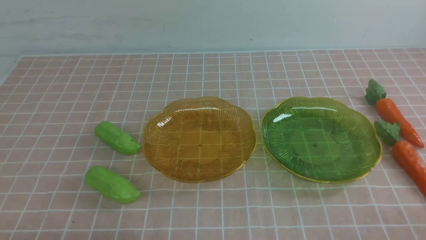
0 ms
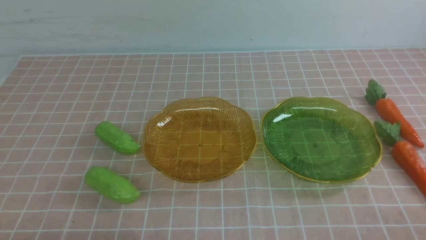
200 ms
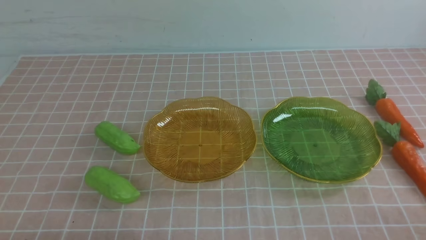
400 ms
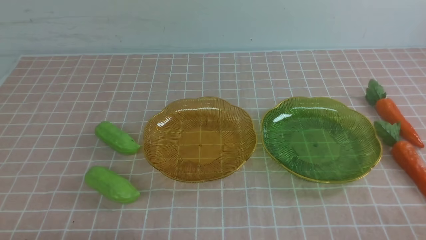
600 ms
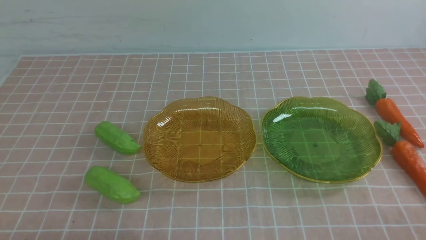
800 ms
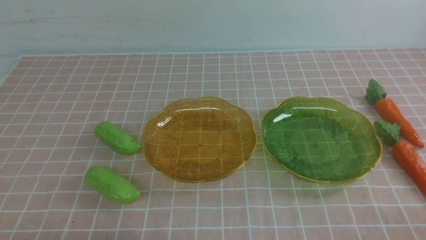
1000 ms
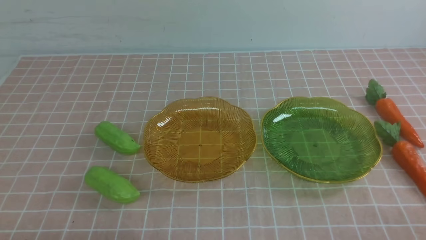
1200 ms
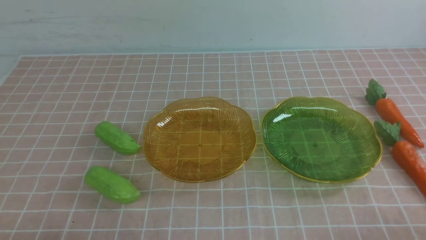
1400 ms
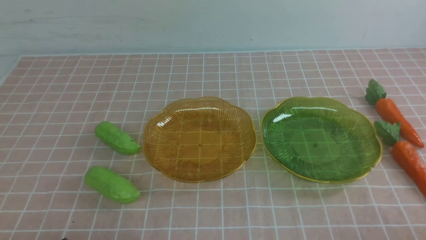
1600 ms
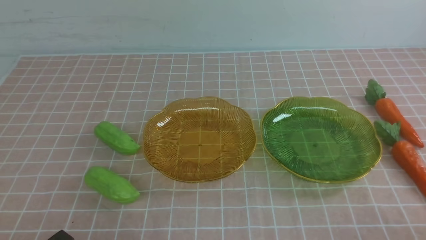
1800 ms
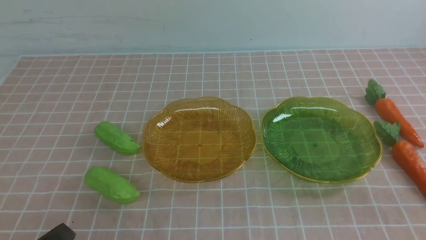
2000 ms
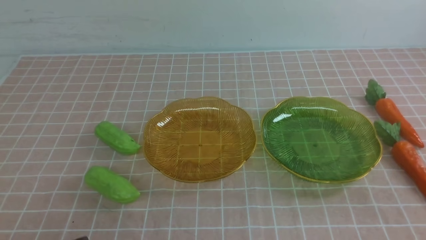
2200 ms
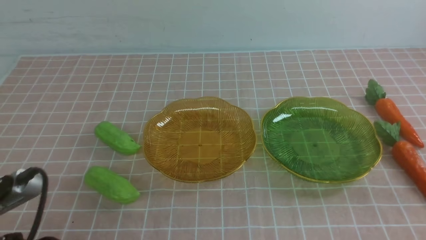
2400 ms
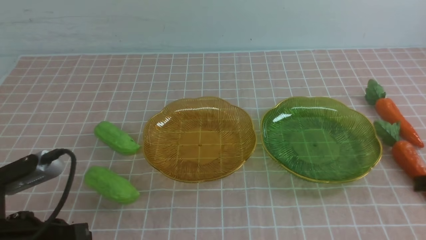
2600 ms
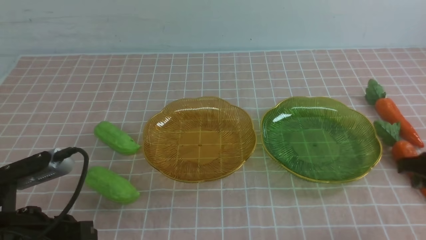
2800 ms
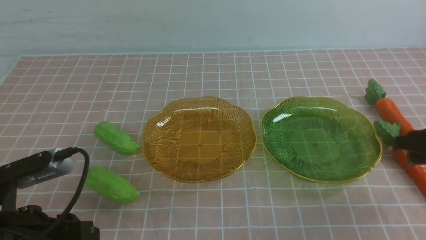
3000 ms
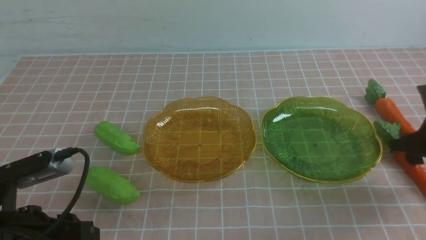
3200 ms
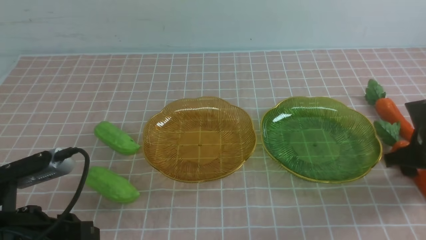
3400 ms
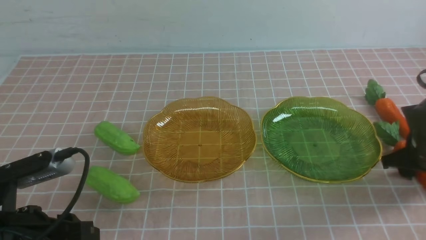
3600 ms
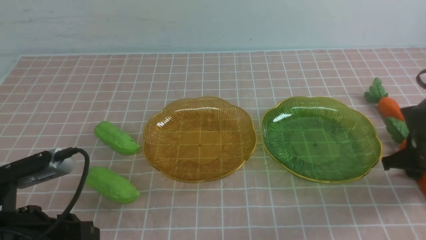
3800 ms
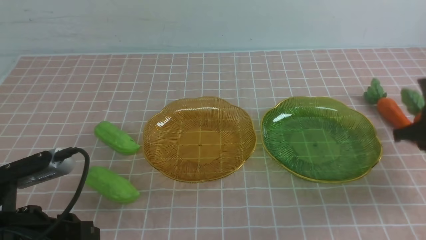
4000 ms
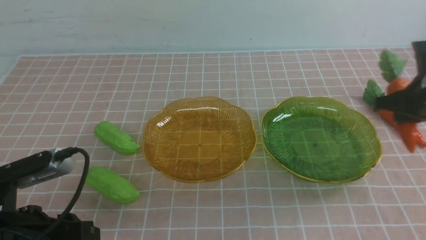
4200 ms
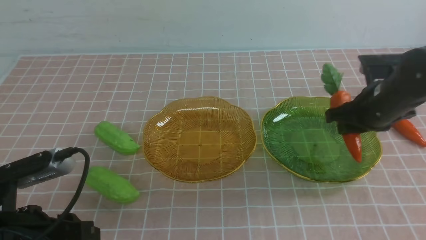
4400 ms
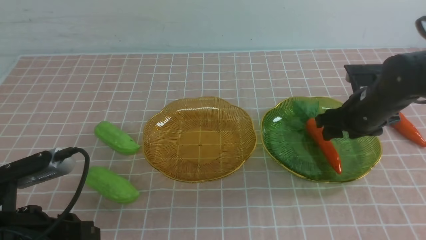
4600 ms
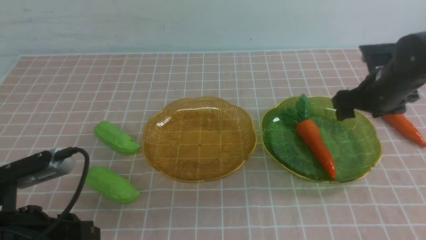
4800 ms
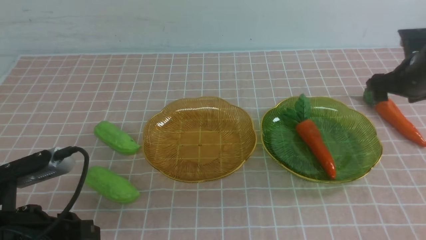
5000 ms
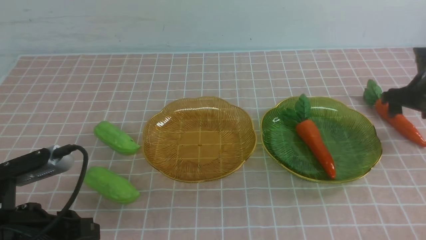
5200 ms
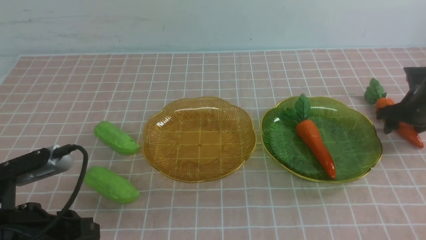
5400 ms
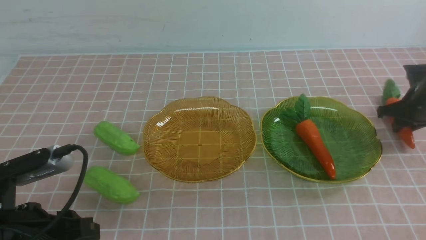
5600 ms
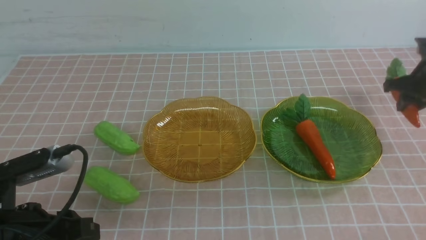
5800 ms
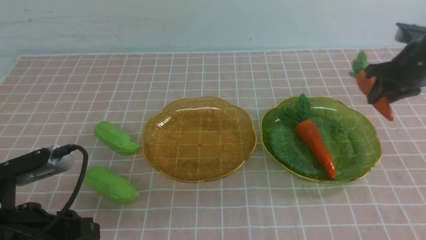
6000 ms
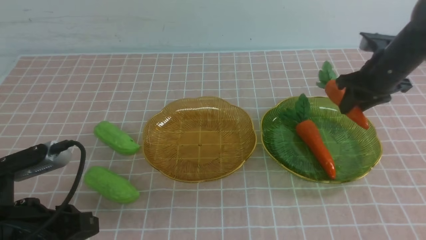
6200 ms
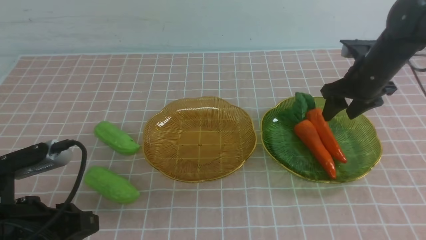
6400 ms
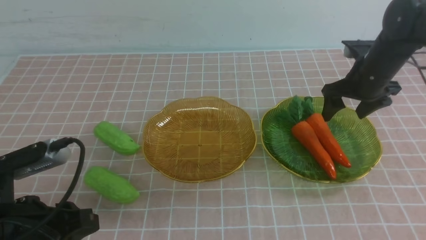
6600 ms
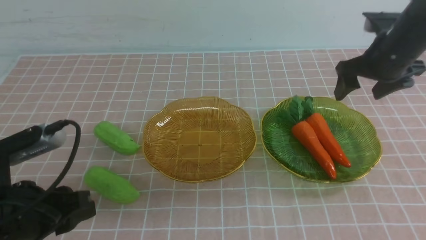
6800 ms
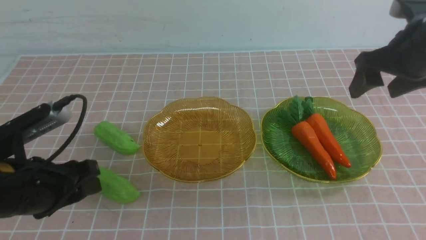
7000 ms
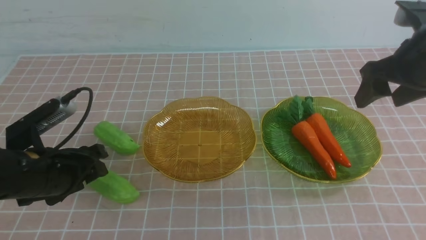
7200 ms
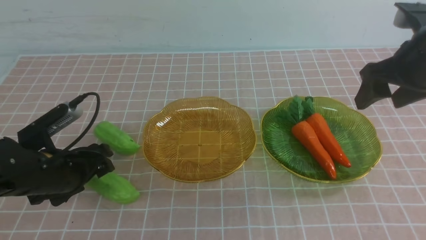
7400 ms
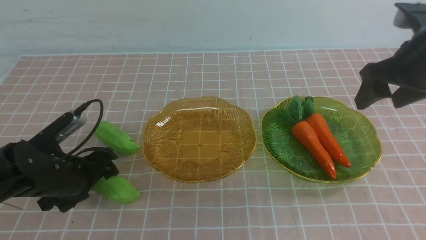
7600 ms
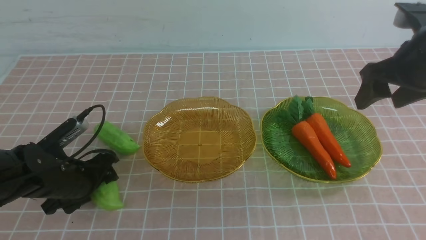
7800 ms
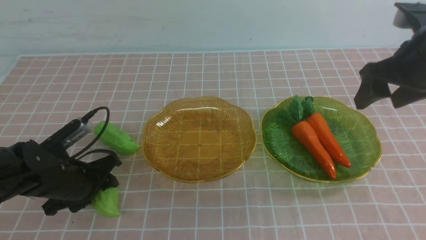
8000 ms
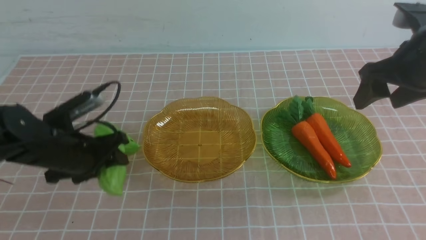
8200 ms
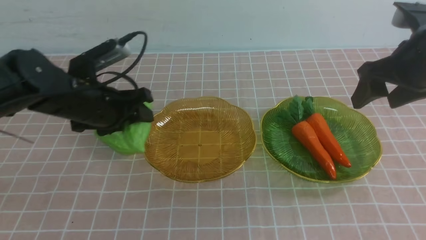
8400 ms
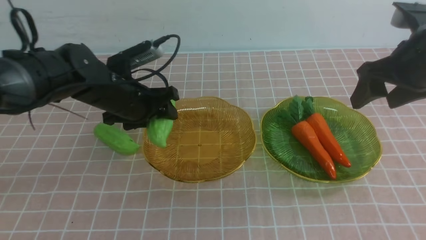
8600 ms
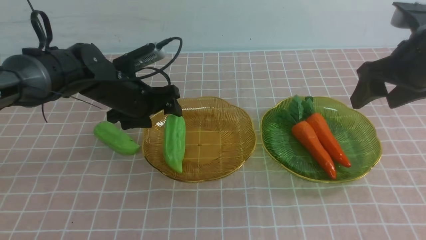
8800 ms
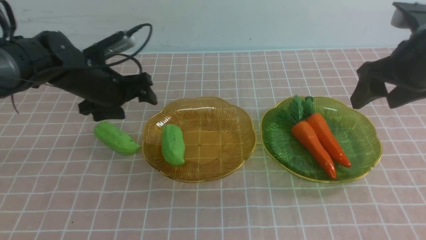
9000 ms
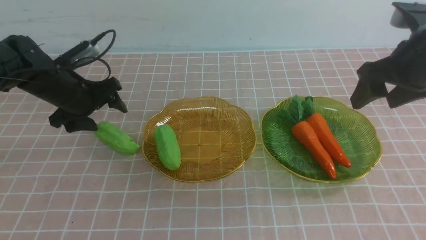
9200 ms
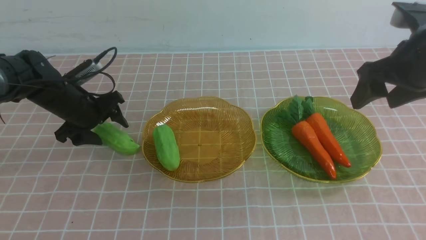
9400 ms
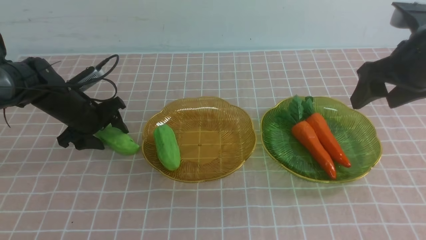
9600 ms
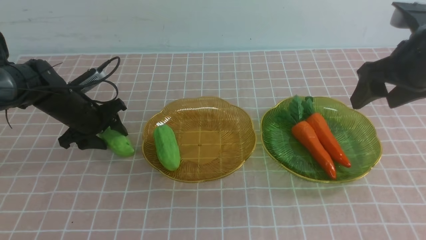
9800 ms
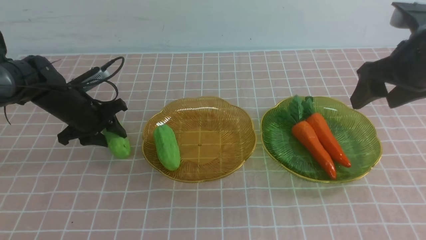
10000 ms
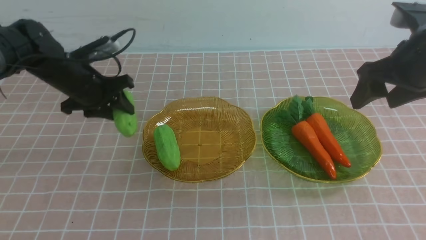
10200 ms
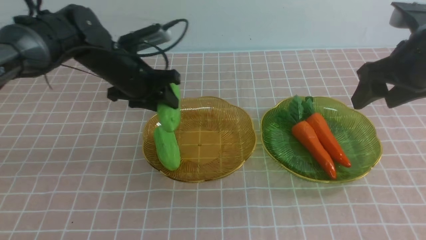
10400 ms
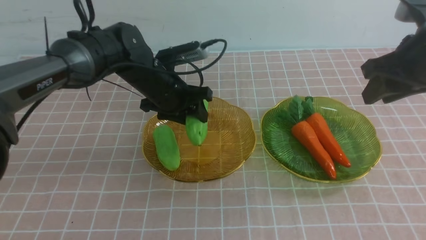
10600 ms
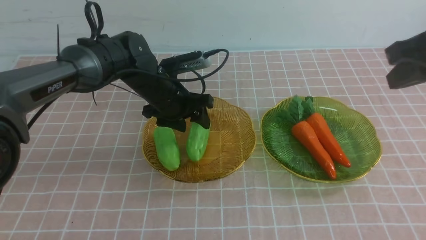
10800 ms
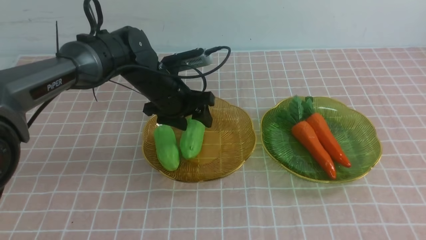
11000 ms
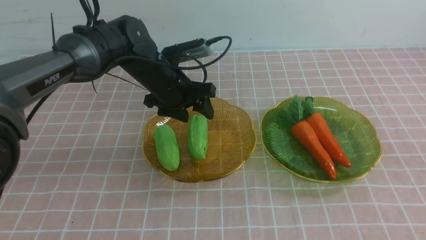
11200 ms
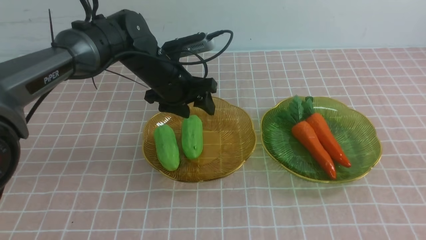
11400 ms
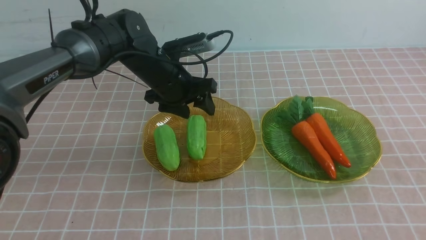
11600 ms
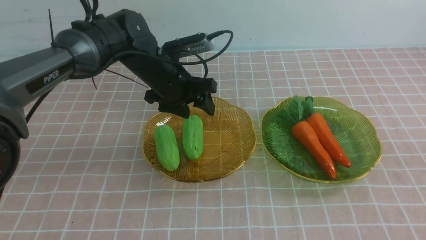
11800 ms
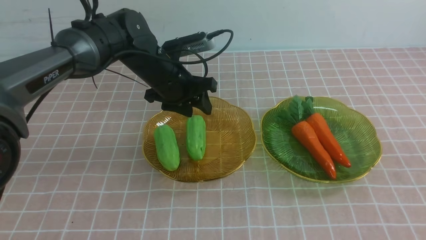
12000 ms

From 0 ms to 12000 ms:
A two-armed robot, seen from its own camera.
Step, from 0 ms to 6400 ms: use the right arm to grab a carrot and put it into the right plate.
Step, from 6600 ms to 8600 ms: use the left arm to grab a chayote and put it into the left plate.
Step, from 9000 ms to 10800 ms: use the left arm to grab a chayote and put it into the left plate.
From 1600 ms to 3000 ms: The left gripper goes approximately 10 cm forward and upward, and opens. The right gripper moves forward, roughly 25 cm, and opens up.
From 3000 ms to 4400 ms: The right gripper is displaced to the left and forward by some 10 cm.
From 4400 ms to 6000 ms: The right gripper moves to the right and forward, about 10 cm, and opens and closes again.
From 6000 ms to 7600 ms: The right gripper heads backward, upward and to the left, covering about 15 cm, and opens. The left gripper is displaced forward and downward by about 15 cm, and opens its fingers.
From 7600 ms to 9000 ms: The left gripper travels forward by roughly 15 cm, and closes and opens again.
From 9000 ms to 10400 ms: The right gripper travels backward and upward by roughly 10 cm, and closes up; the left gripper is displaced to the right by roughly 15 cm.
From 10400 ms to 12000 ms: The right gripper shifts approximately 20 cm backward and downward; the left gripper shifts some 10 cm upward, and closes its fingers.

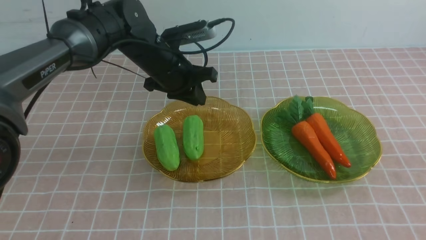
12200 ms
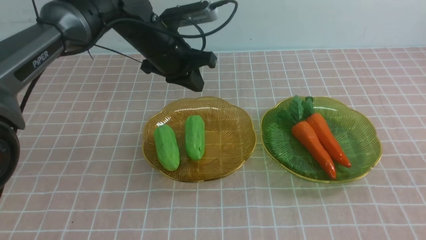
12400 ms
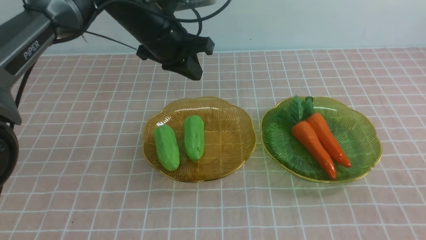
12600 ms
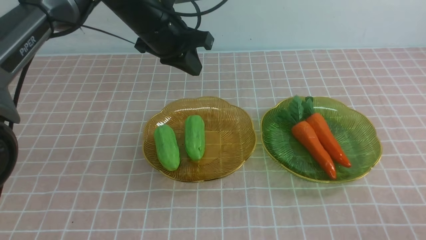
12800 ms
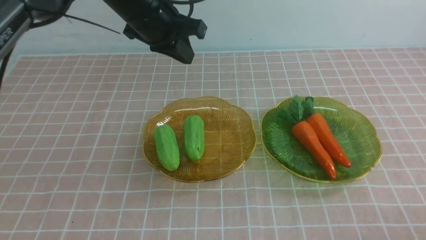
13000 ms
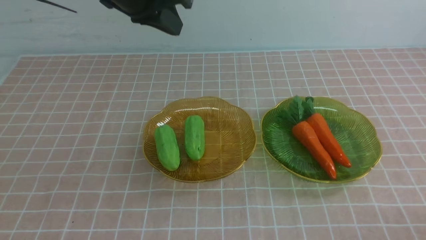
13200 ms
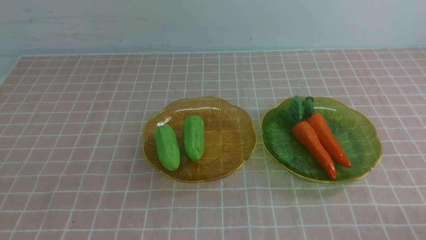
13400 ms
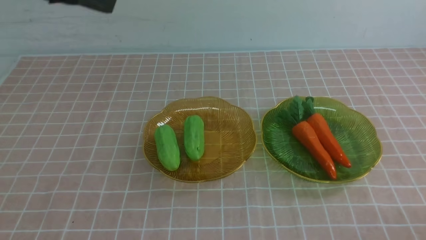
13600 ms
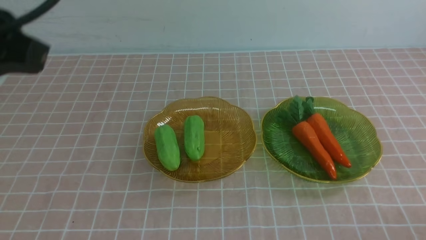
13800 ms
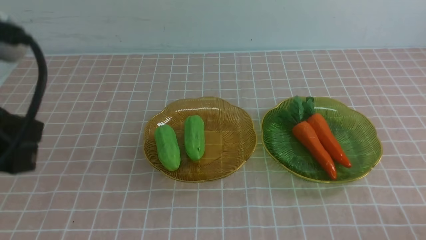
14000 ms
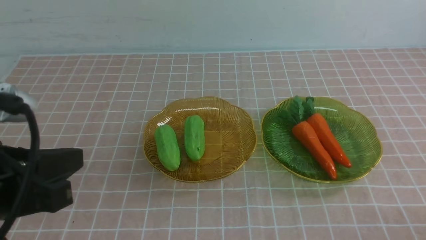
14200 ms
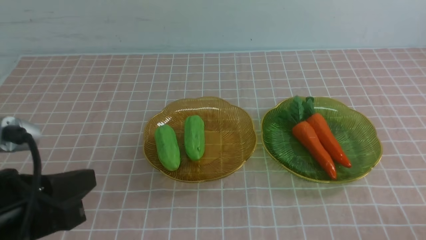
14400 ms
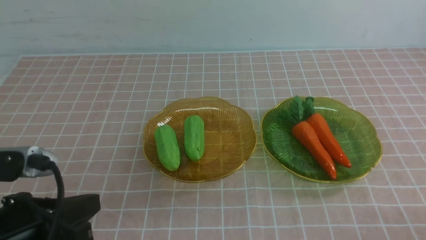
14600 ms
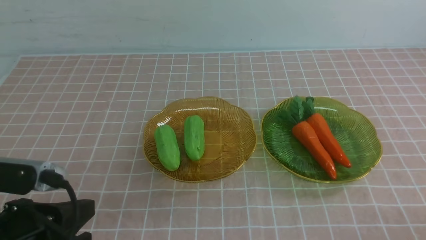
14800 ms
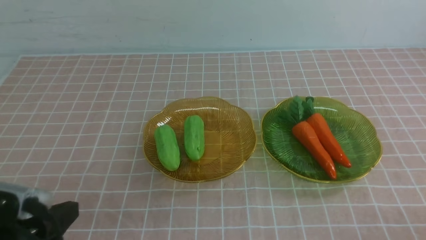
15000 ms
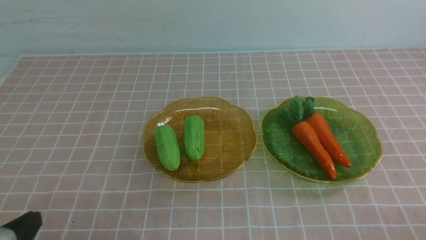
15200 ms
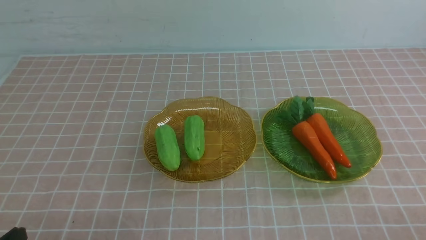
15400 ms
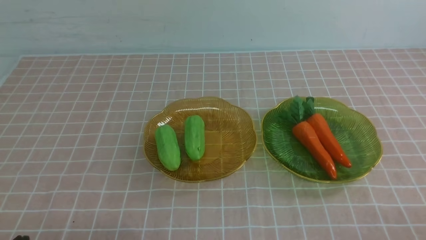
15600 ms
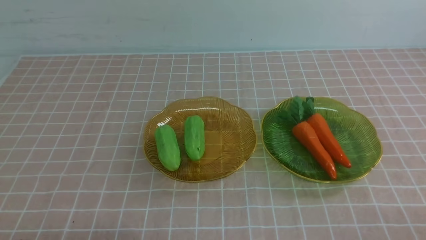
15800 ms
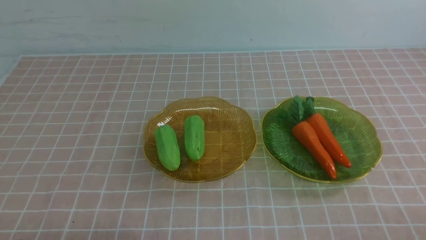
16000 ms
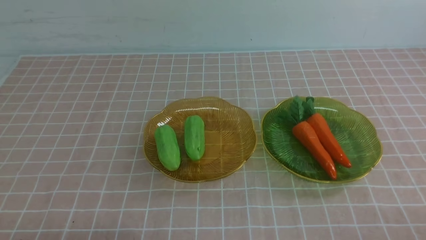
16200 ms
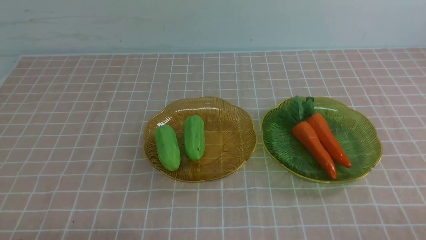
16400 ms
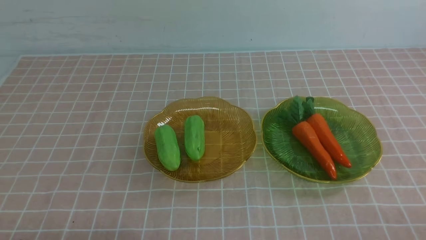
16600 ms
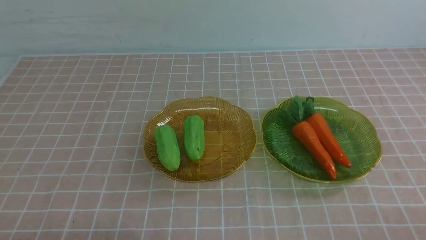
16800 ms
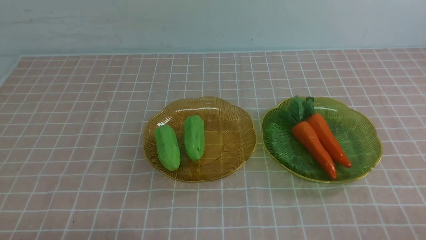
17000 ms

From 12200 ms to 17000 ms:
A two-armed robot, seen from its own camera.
From 12200 ms to 13800 ms: The left gripper travels backward by roughly 30 cm; the right gripper travels downward by approximately 5 cm.
From 13800 ms to 15400 ms: The left gripper shifts some 15 cm downward and backward.
From 15400 ms to 17000 ms: Both grippers stay put.
